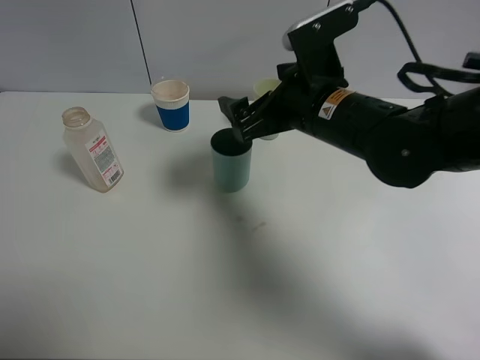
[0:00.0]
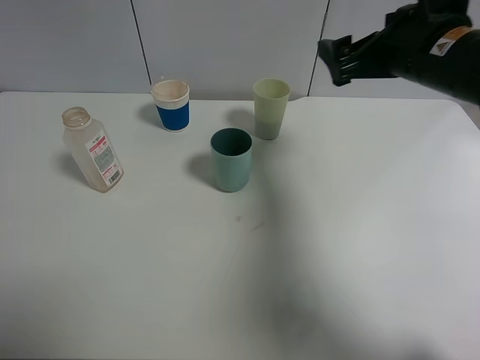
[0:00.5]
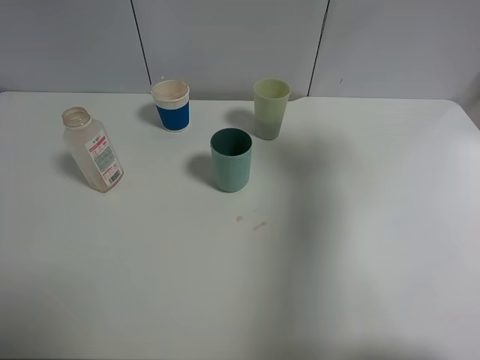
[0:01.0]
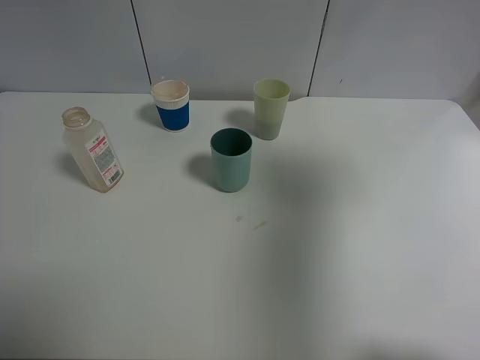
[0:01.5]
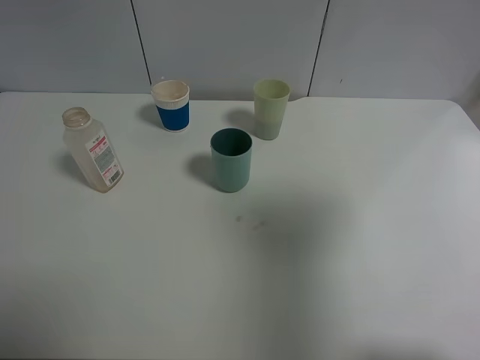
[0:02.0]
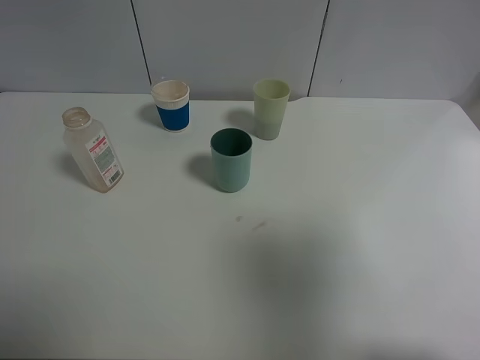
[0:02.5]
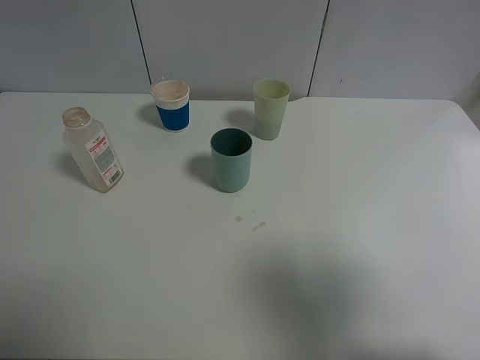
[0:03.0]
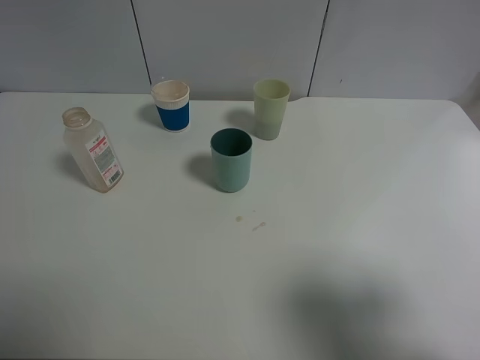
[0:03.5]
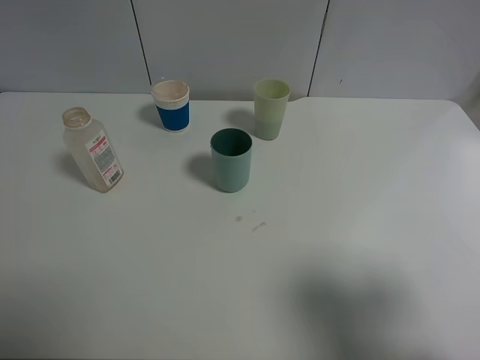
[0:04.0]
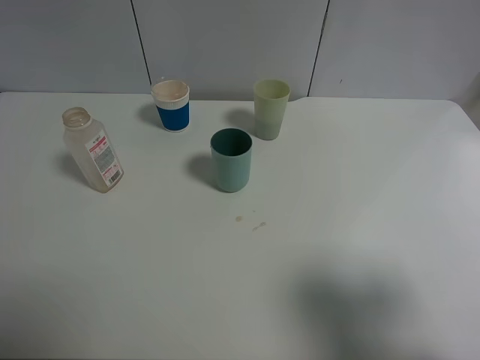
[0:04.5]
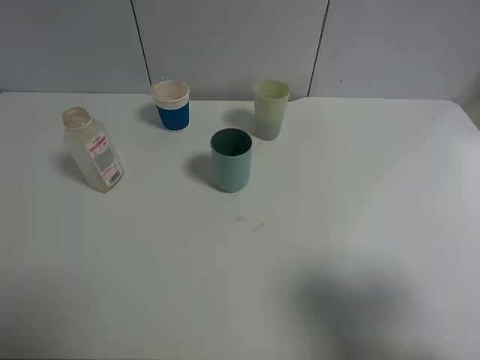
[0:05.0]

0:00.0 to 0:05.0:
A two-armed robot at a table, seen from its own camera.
Task of the whole recording: use a clamp to hold the bottle of the drink, pour the beverage into a random cup, then clamp the cup containing the drink and pour the drink into another random cup.
0:00.0 to 0:02.5: The right gripper goes some 35 cm backward, to the right and upward.
0:02.5 to 0:05.0: The right gripper goes approximately 10 cm downward.
